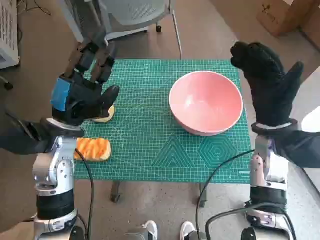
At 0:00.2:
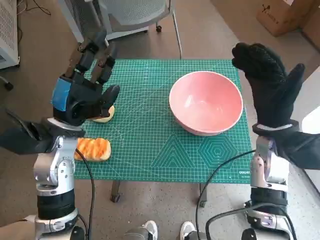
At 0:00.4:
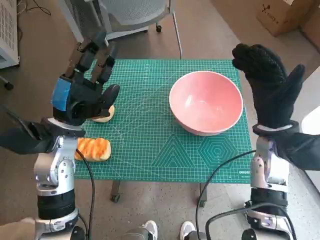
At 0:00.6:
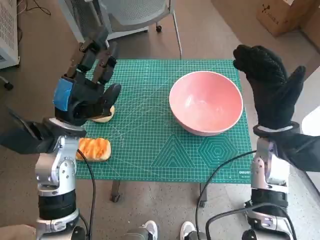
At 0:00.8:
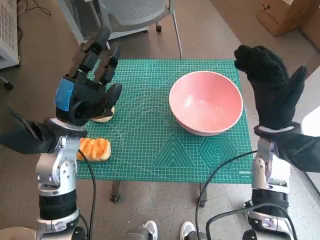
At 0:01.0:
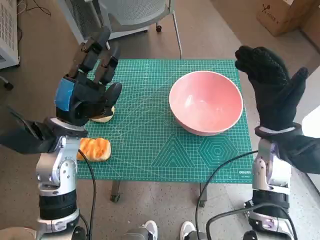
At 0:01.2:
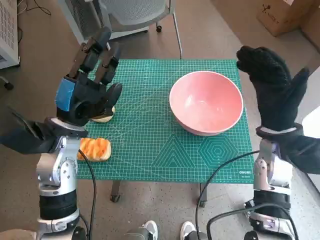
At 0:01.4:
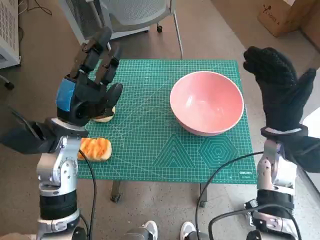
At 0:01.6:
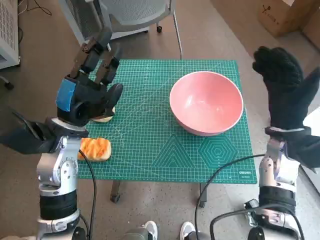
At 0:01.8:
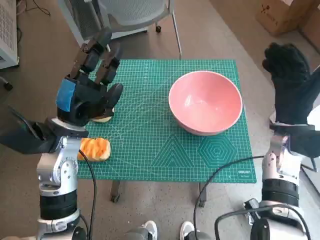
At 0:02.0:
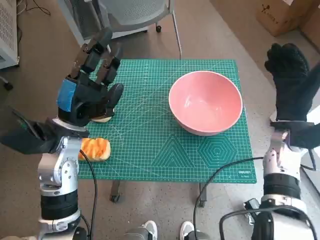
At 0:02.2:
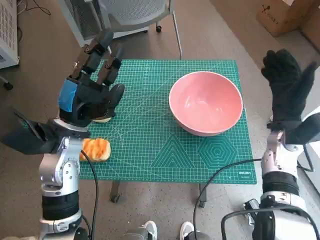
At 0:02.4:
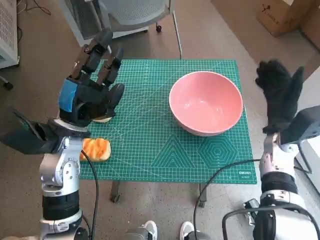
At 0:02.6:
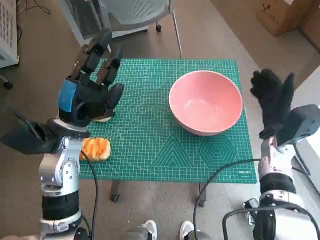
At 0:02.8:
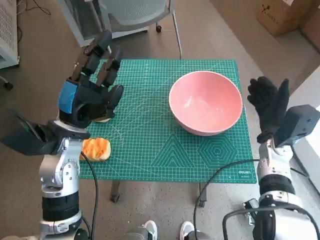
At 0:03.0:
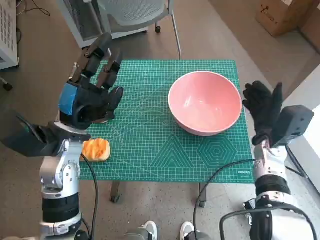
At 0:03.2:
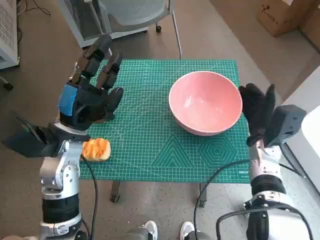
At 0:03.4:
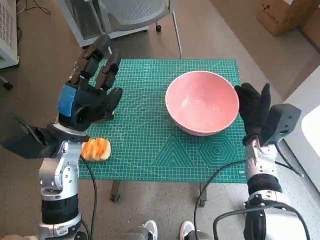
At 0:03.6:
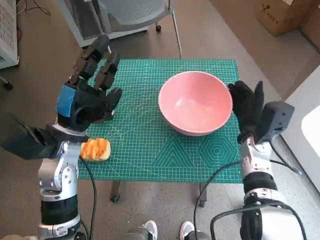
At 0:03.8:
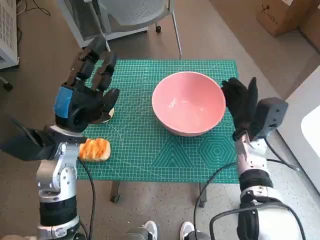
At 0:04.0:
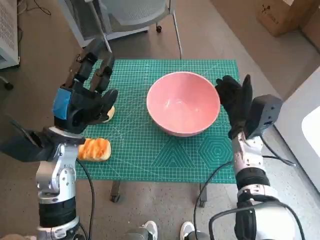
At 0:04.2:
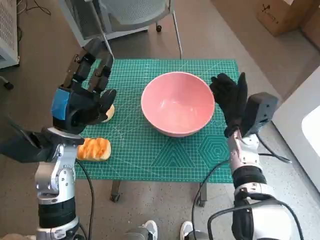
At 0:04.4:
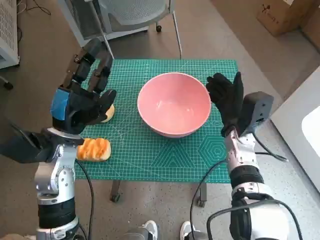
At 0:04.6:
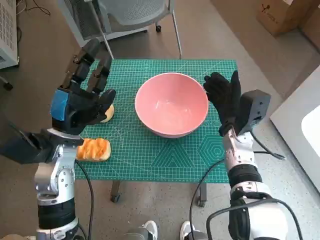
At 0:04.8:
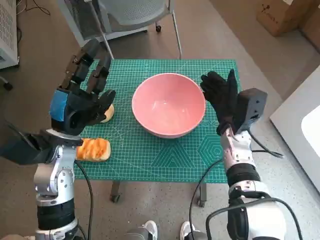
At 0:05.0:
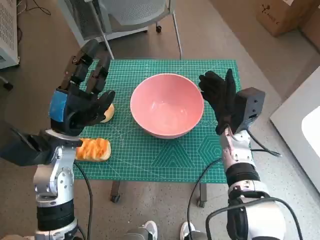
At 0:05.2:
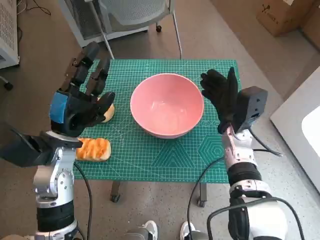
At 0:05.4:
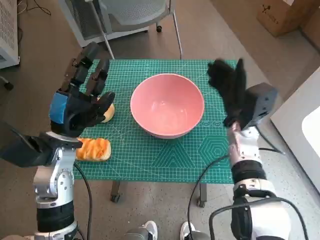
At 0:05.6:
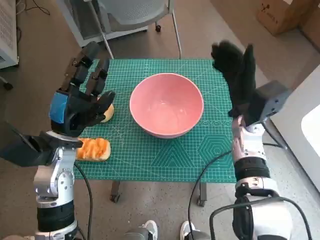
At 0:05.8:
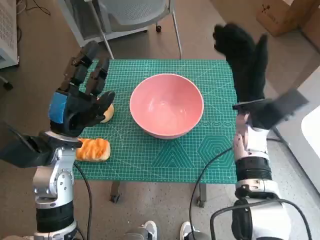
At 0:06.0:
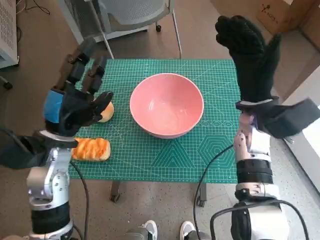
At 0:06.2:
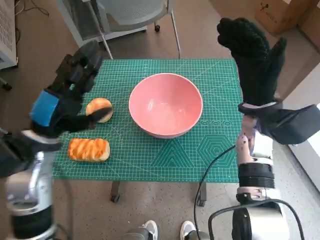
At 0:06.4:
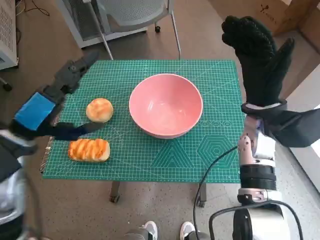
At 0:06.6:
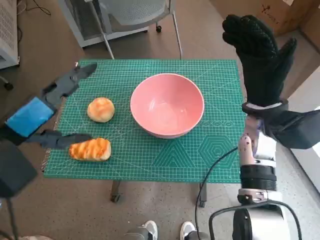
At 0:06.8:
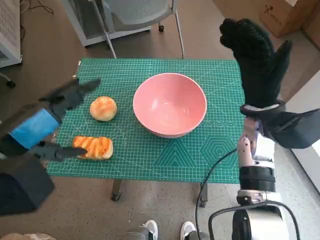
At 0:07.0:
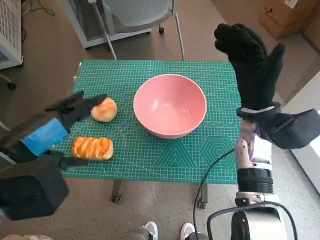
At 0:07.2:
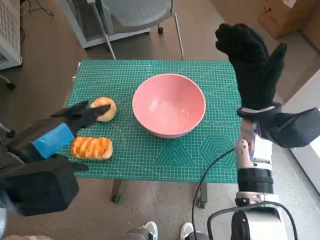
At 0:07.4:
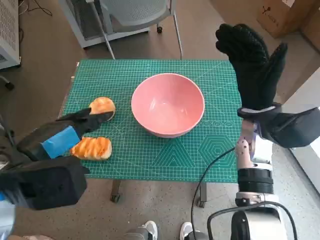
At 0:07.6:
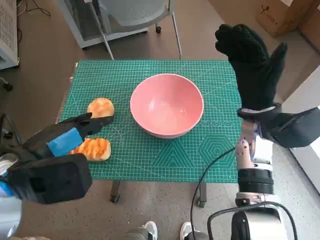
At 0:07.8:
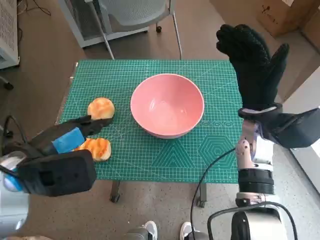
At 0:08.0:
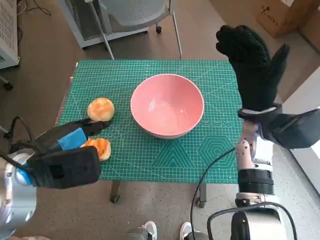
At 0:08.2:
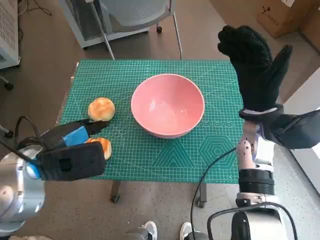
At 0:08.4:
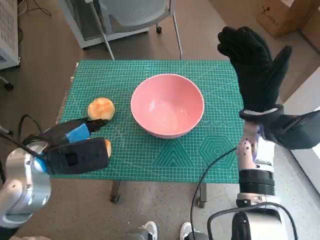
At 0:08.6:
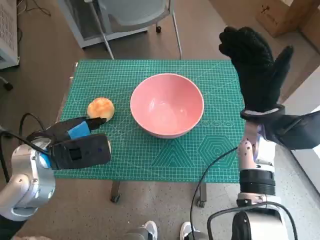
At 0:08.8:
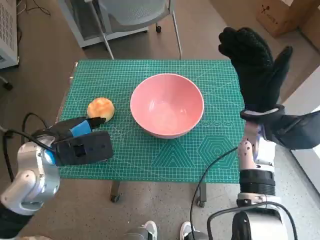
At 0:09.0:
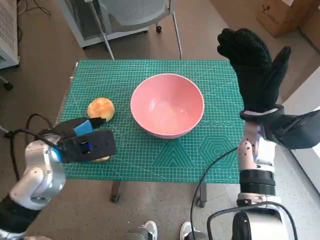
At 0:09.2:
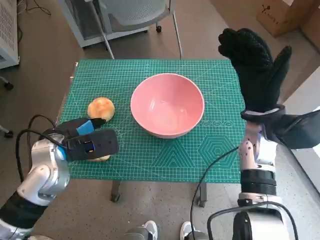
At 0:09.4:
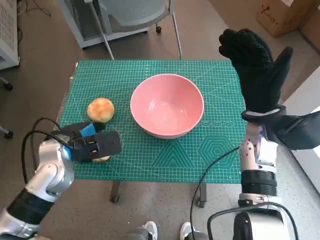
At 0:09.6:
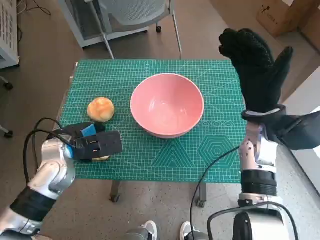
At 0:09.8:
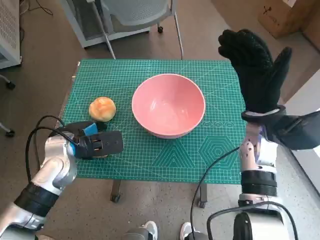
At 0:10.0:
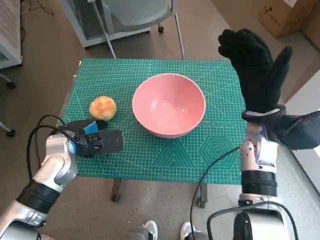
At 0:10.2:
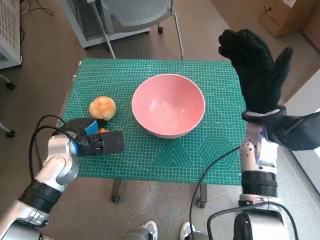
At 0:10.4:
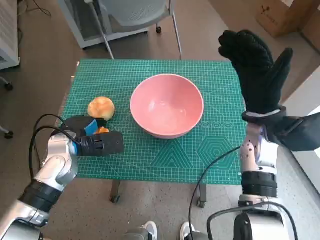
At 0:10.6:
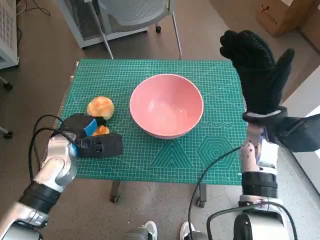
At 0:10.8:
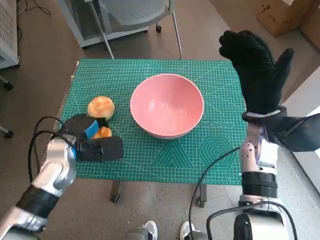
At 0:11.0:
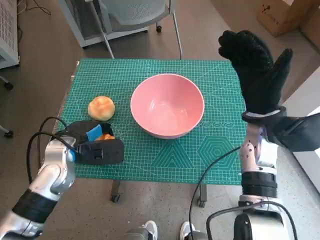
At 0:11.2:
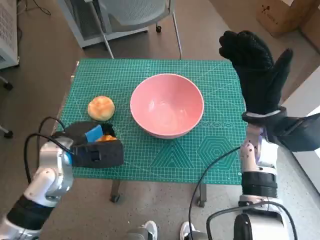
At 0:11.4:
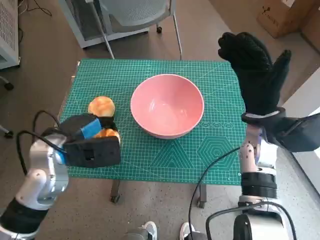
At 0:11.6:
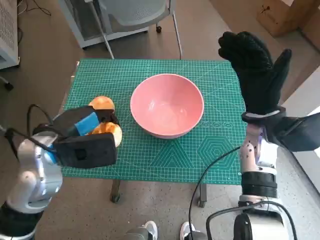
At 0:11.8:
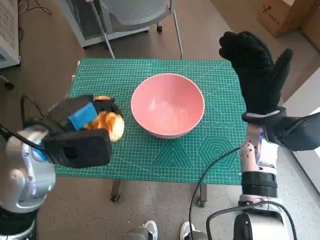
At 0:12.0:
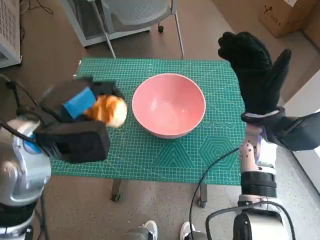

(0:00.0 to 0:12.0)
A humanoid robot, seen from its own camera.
Step, 0:00.0 - 0:05.2: Move the pink bowl to the center of table with right hand.
Step, 0:05.4 - 0:10.4: Grasp the long bread with left hand.
0:01.6 - 0:03.0: The right hand travels downward by approximately 5 cm.
0:03.0 - 0:04.4: The right hand moves to the left, some 5 cm.
0:04.4 - 0:06.0: The right hand goes roughly 10 cm upward.
0:06.0 - 0:07.6: The left hand moves upward and backward, roughly 10 cm.
0:07.6 - 0:09.0: The left hand goes roughly 10 cm downward and forward.
0:09.0 - 0:10.4: The left hand ends up approximately 5 cm from where it was.
0:10.4 - 0:12.0: The left hand goes roughly 10 cm upward.

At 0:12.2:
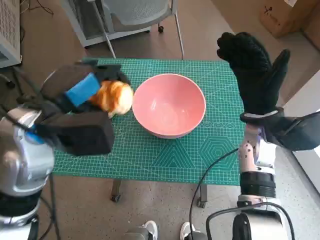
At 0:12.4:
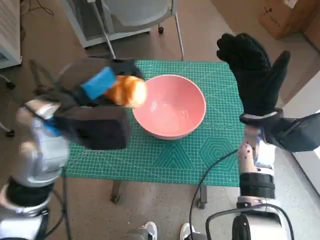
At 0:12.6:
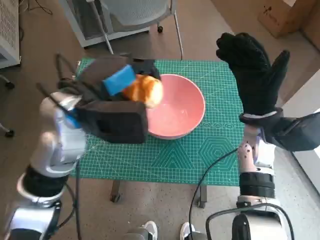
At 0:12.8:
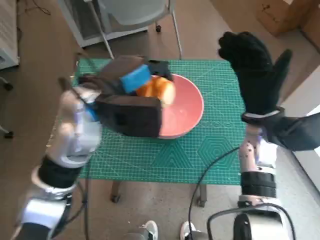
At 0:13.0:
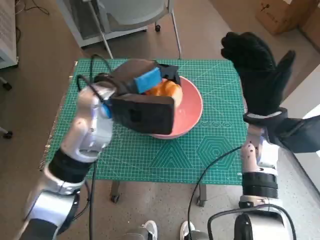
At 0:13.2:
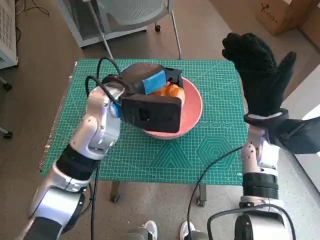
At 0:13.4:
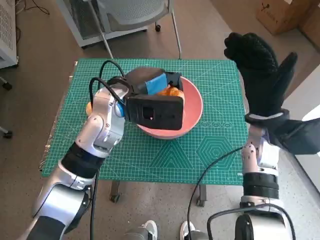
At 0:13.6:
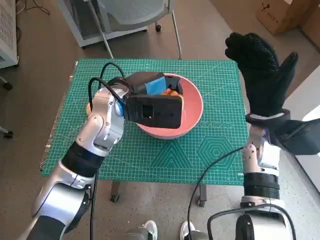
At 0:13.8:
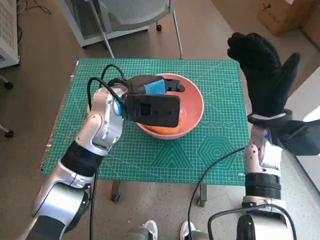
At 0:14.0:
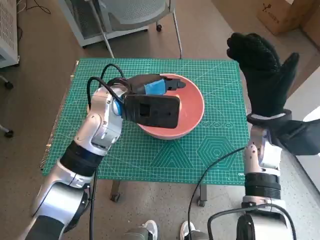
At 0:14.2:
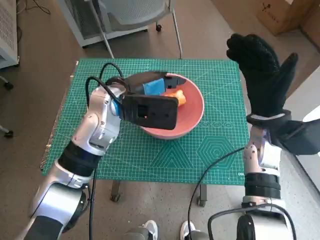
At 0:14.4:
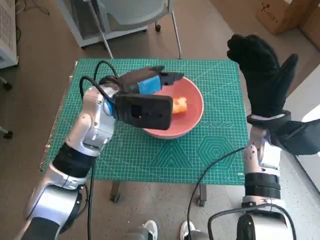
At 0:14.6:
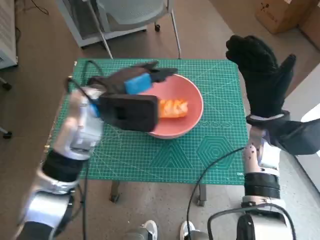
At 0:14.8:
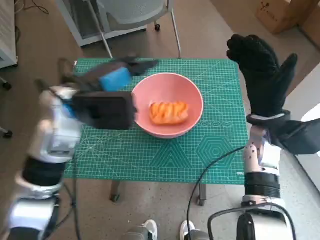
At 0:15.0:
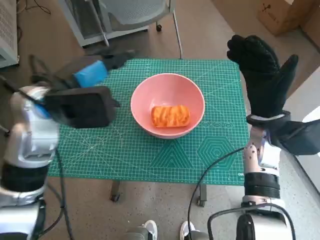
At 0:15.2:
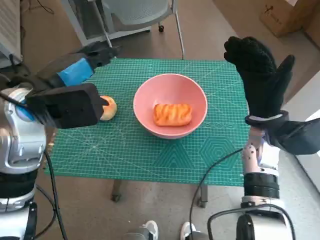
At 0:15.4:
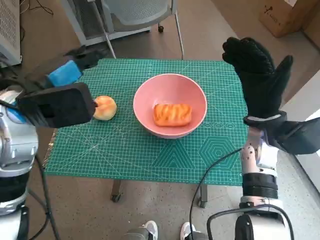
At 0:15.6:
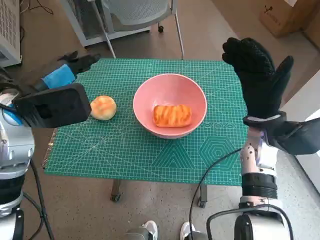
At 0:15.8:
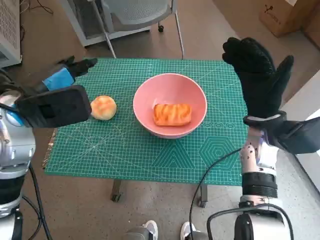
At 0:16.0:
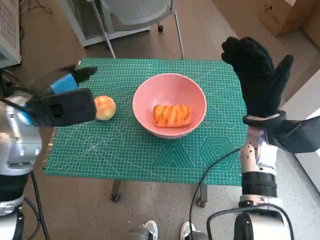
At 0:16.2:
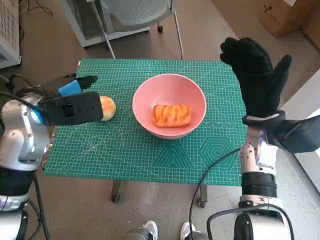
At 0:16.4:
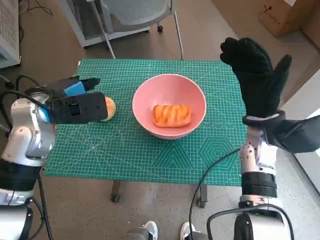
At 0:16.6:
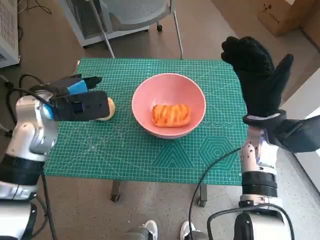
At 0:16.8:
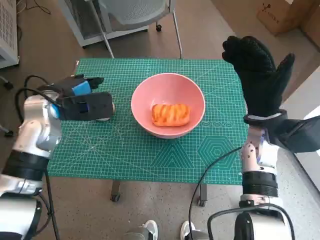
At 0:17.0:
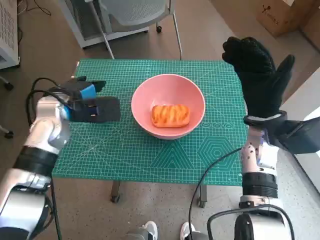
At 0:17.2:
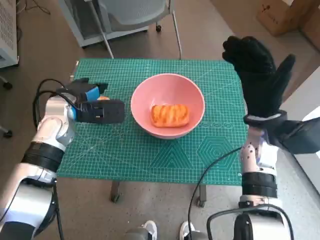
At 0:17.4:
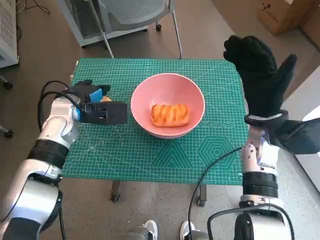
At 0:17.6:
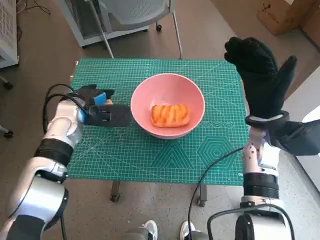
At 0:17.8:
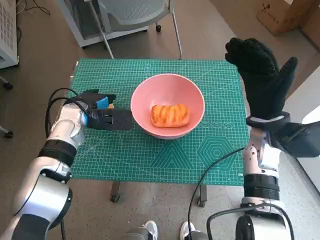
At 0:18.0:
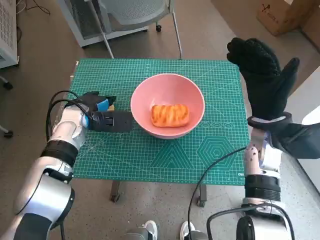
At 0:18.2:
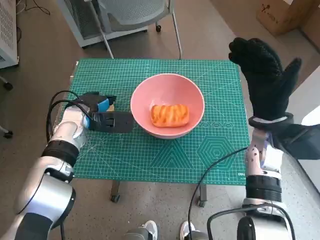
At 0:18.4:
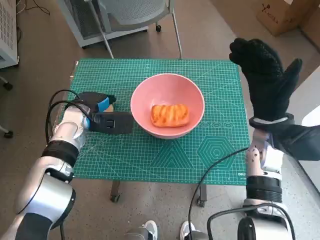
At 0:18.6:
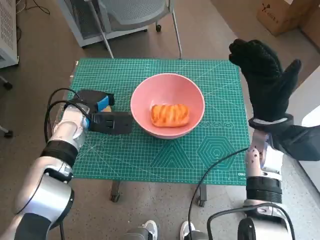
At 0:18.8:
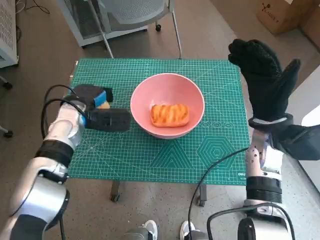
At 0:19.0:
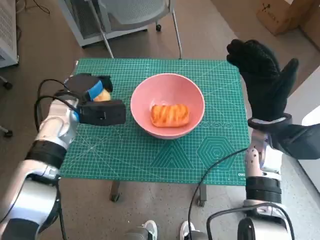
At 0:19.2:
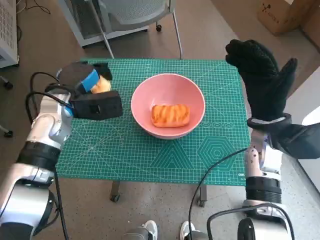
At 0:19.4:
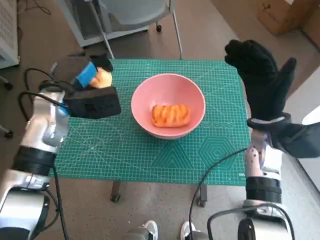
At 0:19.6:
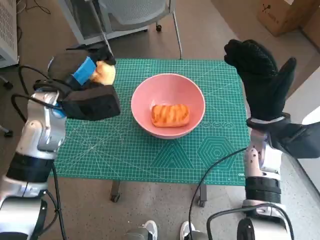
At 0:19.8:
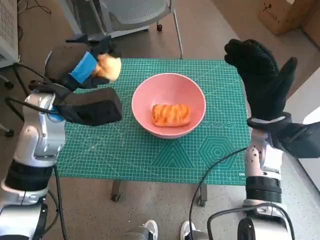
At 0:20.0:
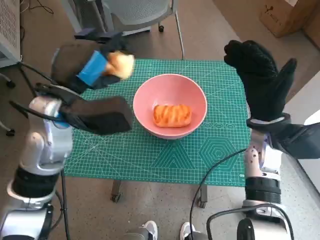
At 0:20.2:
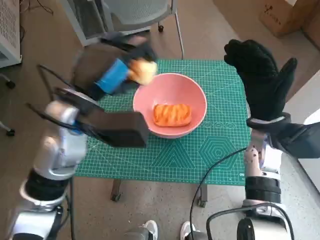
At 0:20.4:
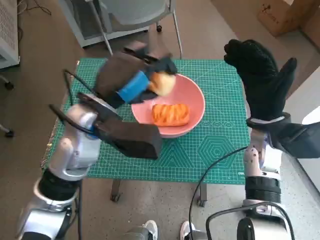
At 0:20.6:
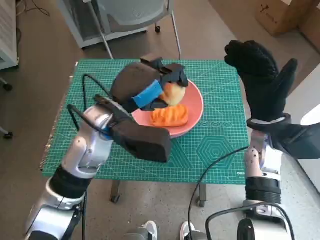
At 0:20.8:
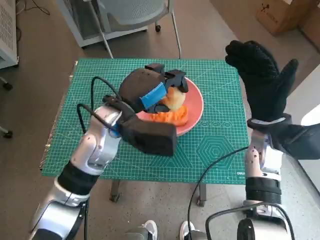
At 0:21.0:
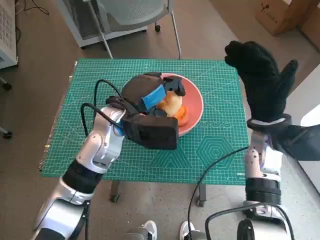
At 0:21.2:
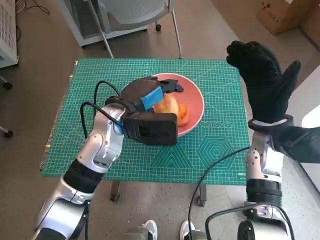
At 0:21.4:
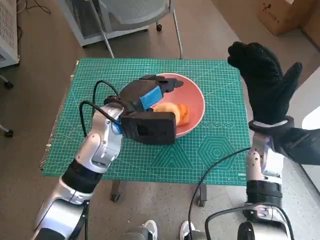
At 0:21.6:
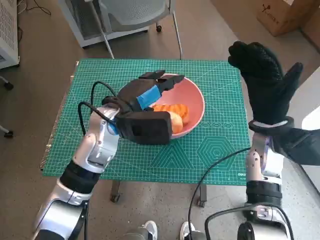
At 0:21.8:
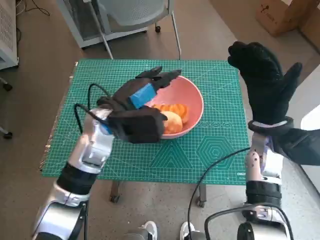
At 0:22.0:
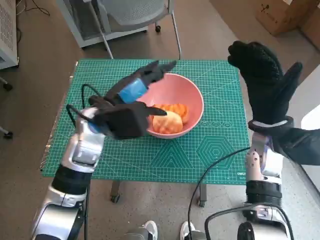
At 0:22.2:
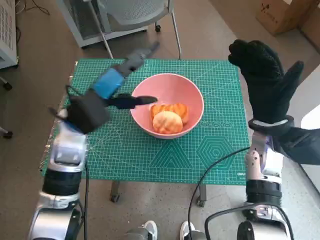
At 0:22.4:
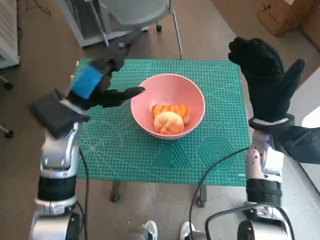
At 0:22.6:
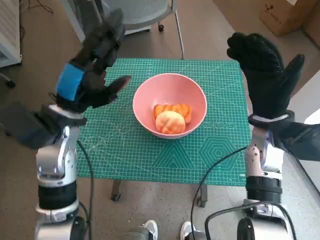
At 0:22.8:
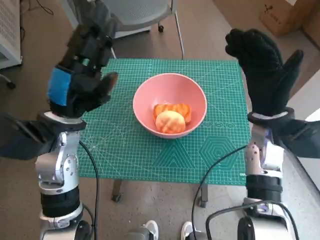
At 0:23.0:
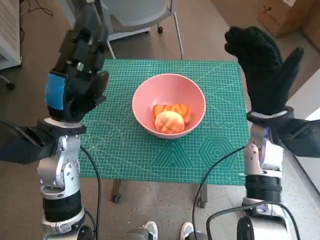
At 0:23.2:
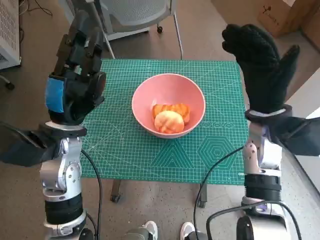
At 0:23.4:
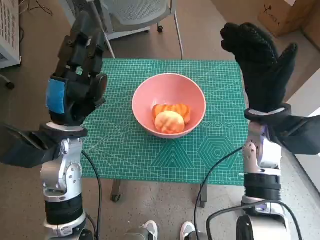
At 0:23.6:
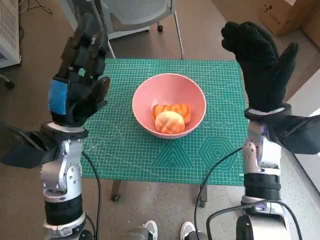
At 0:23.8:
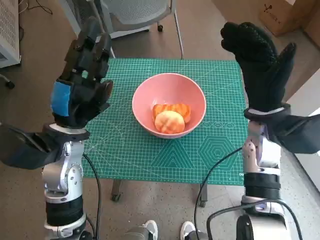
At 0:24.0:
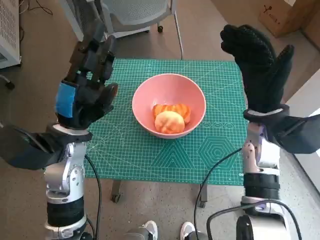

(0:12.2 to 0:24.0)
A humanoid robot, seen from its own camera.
Step, 0:12.2 - 0:14.2: Place the long bread in pink bowl with left hand.
Step, 0:14.4 - 0:18.6: Grasp the round bread with left hand.
Step, 0:18.8 - 0:21.4: Place the round bread in pink bowl with left hand.
0:12.2 - 0:13.6: The left hand travels to the right and forward by approximately 10 cm.
0:13.6 - 0:15.2: The left hand heads to the left and upward, covering some 10 cm.
0:15.2 - 0:16.6: The left hand goes about 5 cm downward.
0:16.6 - 0:18.2: The left hand heads downward, covering approximately 10 cm.
0:18.2 - 0:19.6: The left hand travels upward by approximately 10 cm.
0:19.6 - 0:21.0: The left hand is displaced to the right by approximately 10 cm.
0:21.0 - 0:22.6: The left hand shifts roughly 10 cm to the left.
